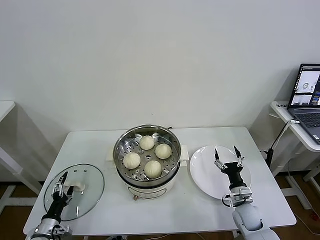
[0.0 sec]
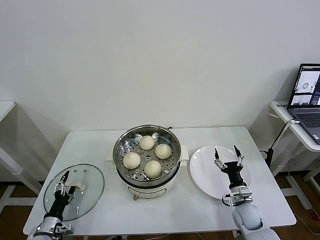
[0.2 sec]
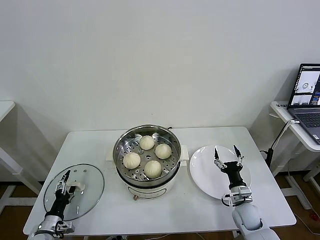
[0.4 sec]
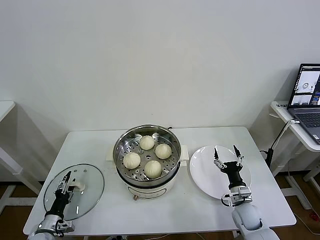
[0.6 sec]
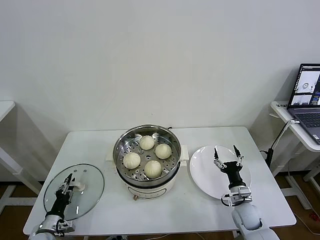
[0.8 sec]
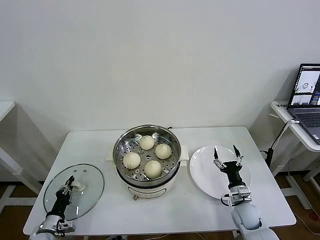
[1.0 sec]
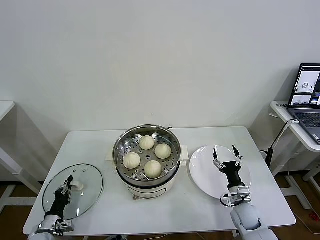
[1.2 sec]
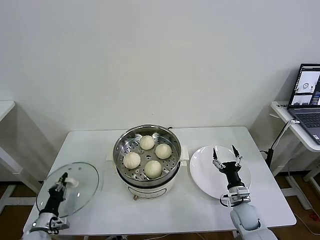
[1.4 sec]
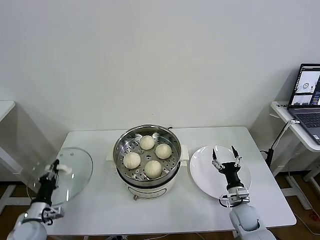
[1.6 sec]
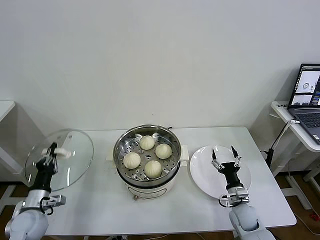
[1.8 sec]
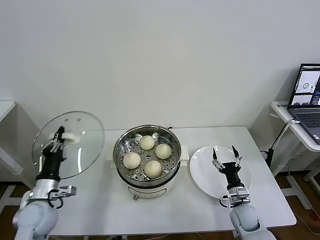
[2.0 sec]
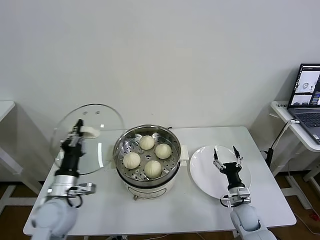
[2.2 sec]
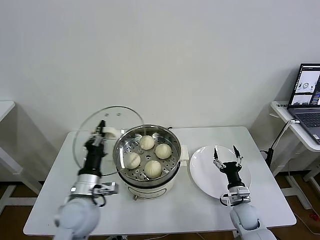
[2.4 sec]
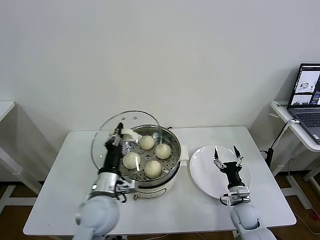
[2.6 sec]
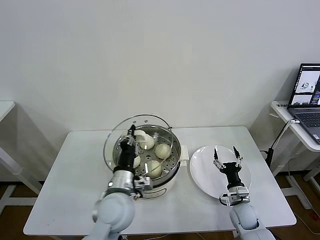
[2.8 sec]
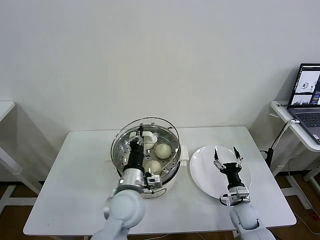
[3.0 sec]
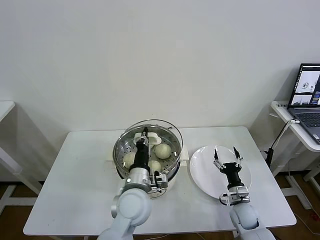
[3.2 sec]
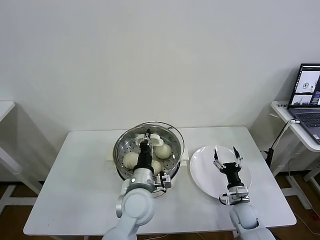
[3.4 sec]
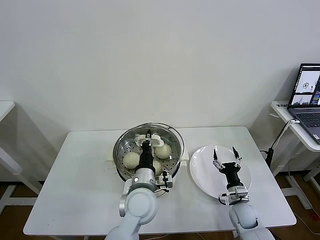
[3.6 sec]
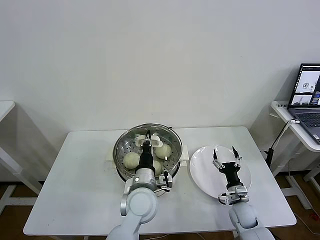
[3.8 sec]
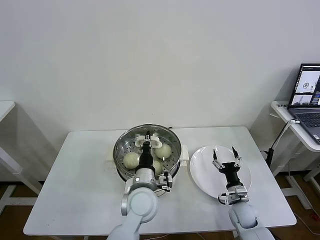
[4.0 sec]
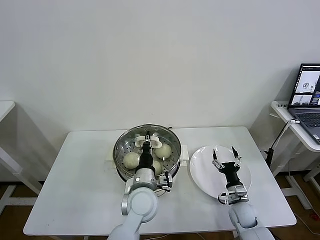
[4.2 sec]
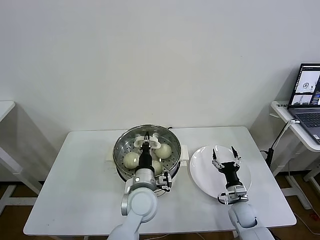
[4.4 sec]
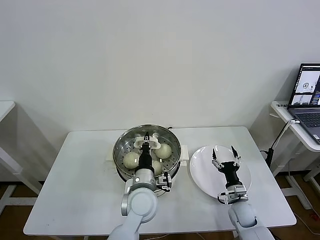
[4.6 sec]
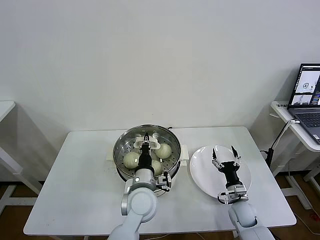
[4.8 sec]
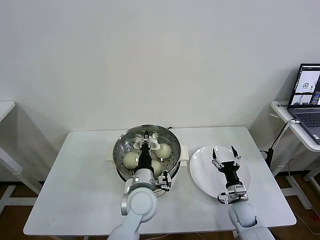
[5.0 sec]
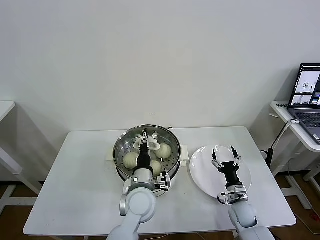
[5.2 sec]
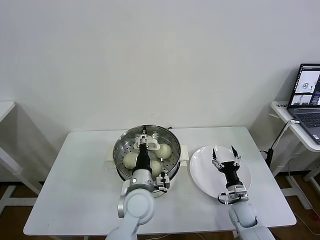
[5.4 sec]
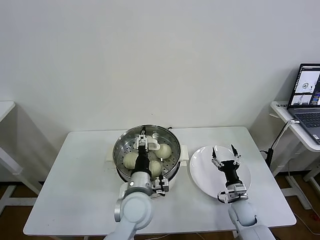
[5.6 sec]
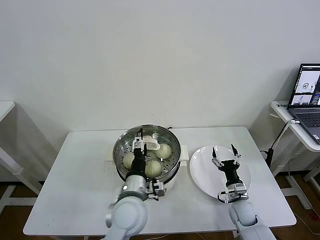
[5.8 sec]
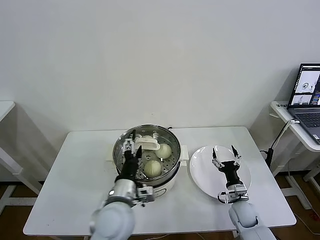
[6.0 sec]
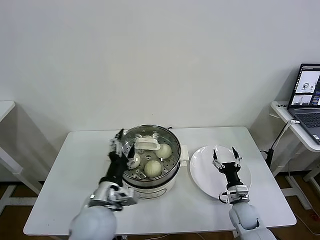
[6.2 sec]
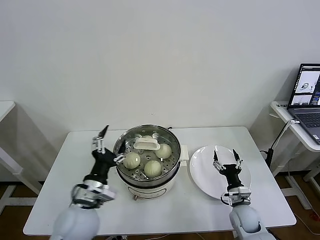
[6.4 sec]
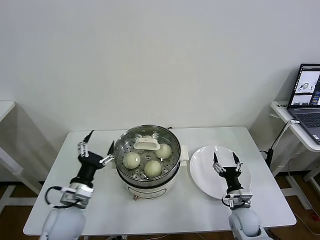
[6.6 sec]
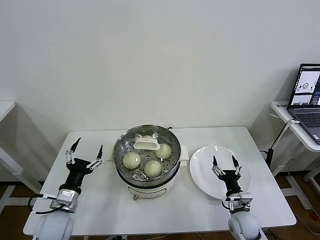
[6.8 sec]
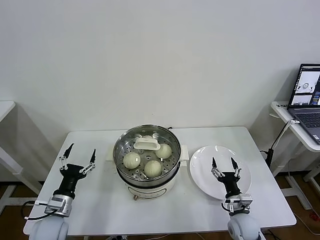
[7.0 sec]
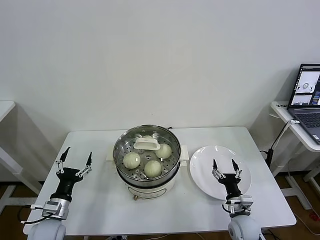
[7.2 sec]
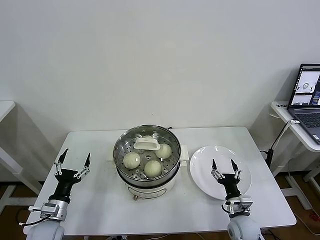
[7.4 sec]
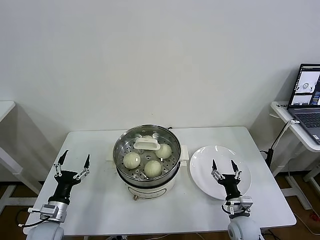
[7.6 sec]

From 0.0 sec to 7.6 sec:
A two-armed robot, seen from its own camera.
Task of the whole recording: take steamed baozi put them in steamer then cover it.
Step, from 1.4 sec to 5.2 sec: Place the pot lid on the steamer with left gripper.
From 0.0 sec to 1.6 sec: The left gripper changes place by about 5 cm, and closes.
From 1.6 sec to 3.0 sec: The left gripper shifts some 35 cm to the right and upward.
From 3.0 sec to 4.6 sec: The left gripper ends up about 5 cm from where it was.
From 4.6 sec to 6.0 sec: The left gripper goes about 5 cm backward and to the left, and opens.
From 6.0 sec to 7.6 sec: The left gripper shifts approximately 30 cm to the left and downward. The right gripper travels backward by approximately 5 cm.
